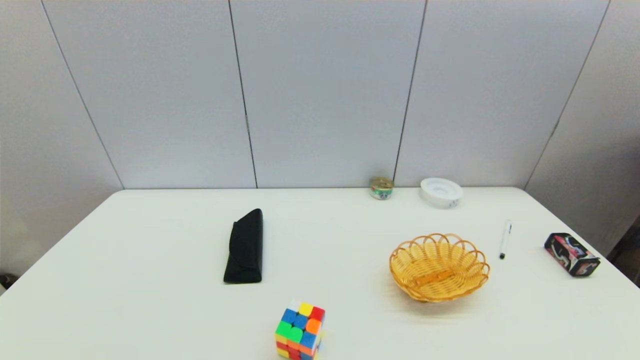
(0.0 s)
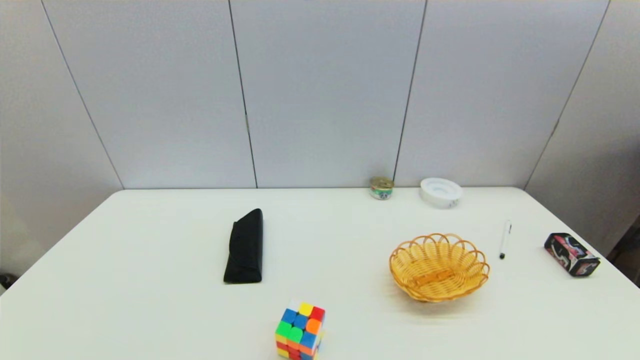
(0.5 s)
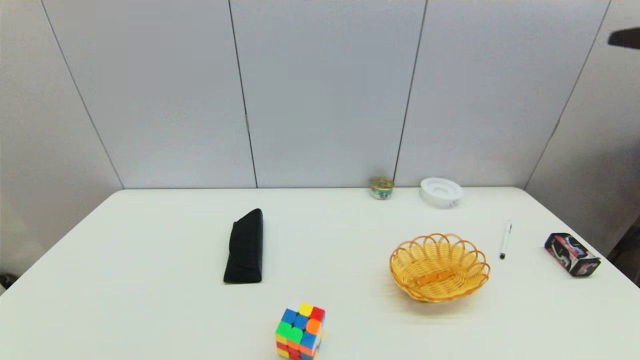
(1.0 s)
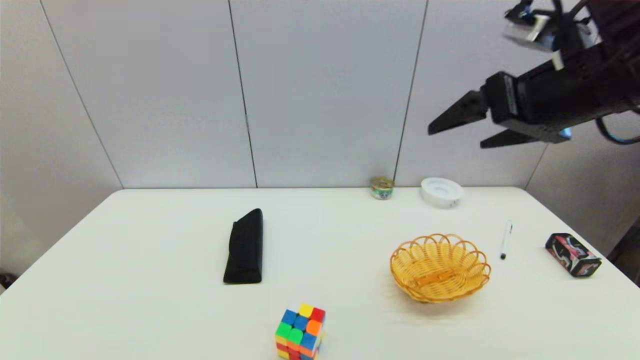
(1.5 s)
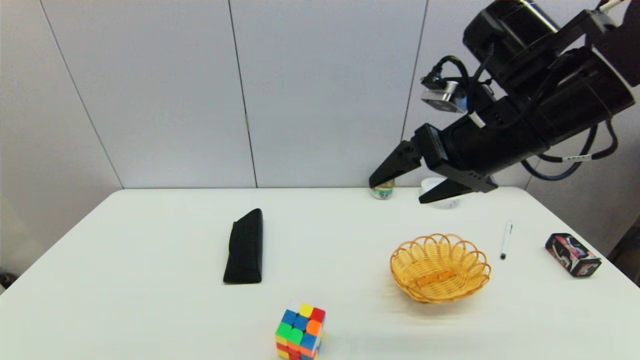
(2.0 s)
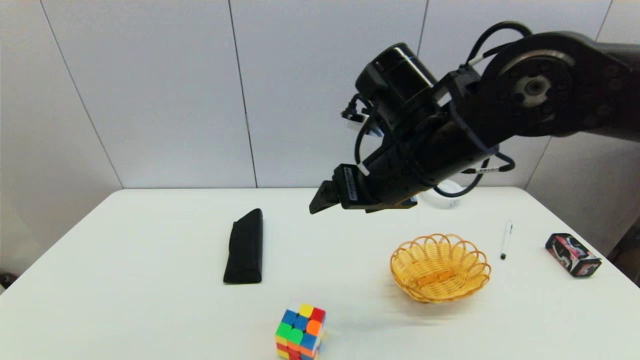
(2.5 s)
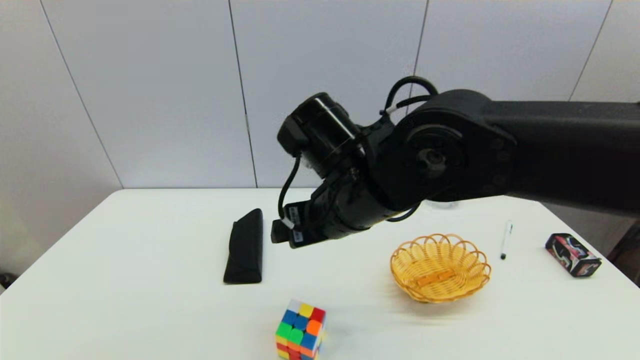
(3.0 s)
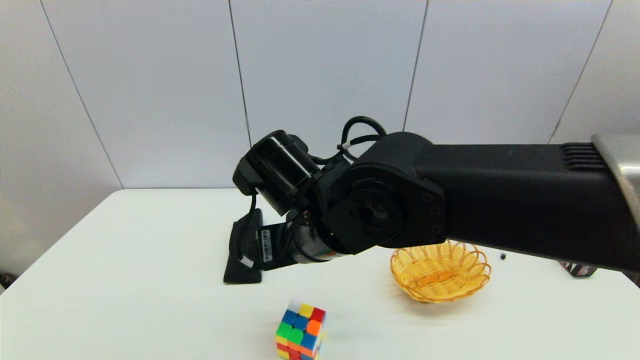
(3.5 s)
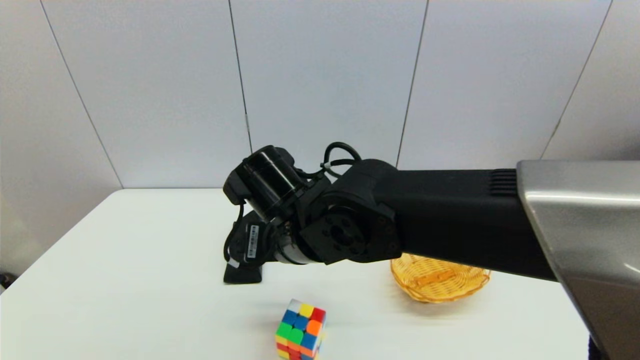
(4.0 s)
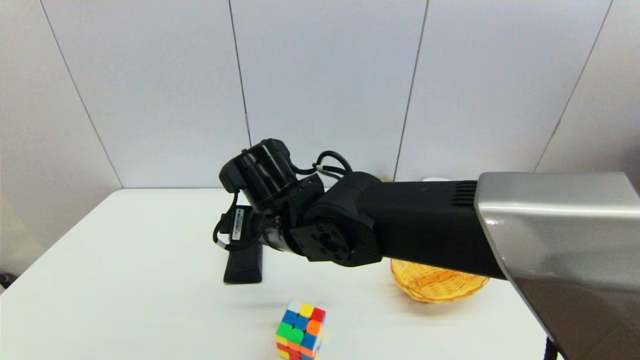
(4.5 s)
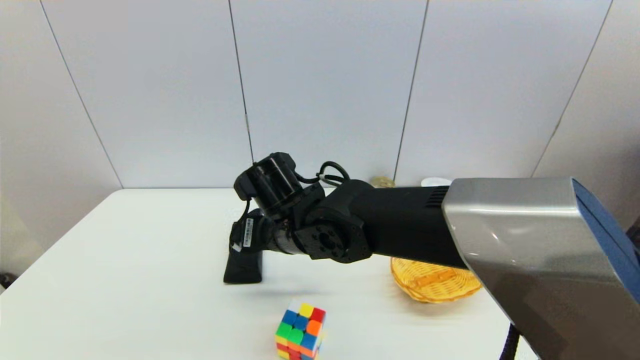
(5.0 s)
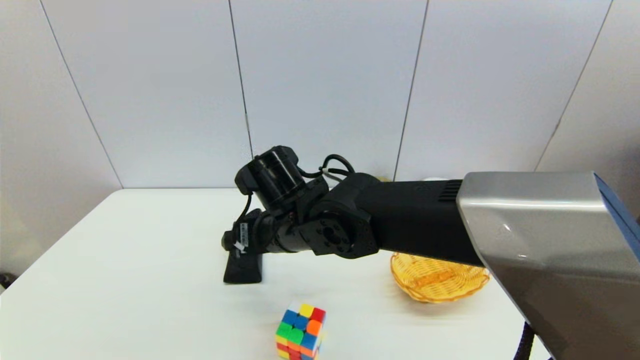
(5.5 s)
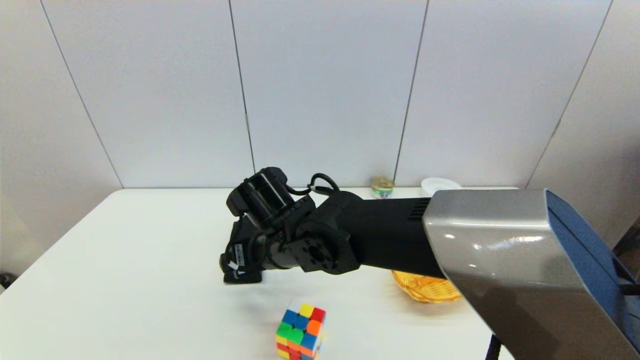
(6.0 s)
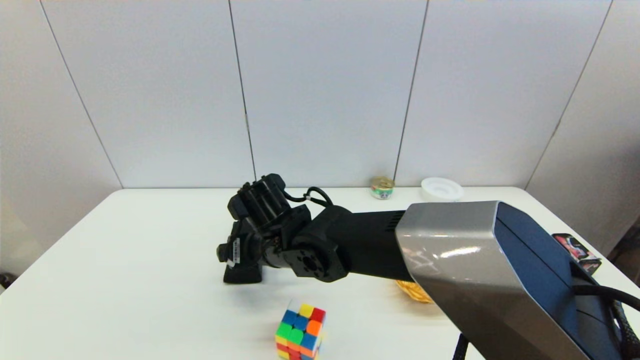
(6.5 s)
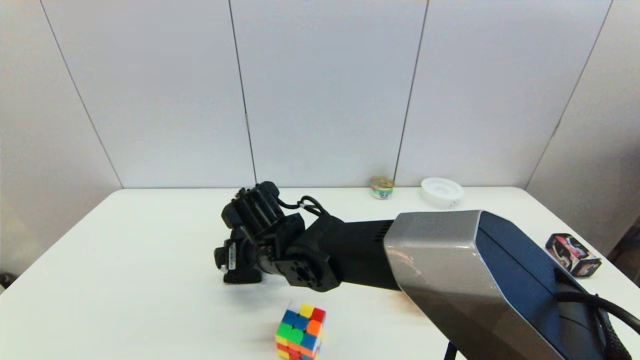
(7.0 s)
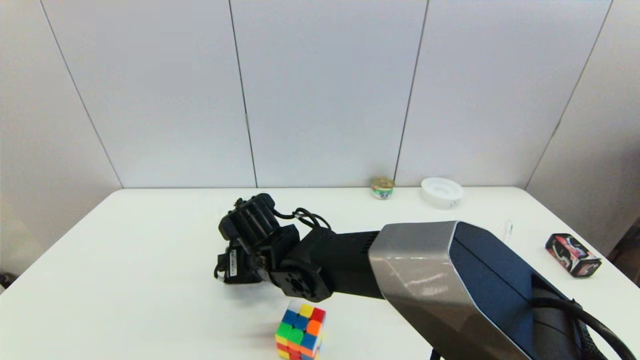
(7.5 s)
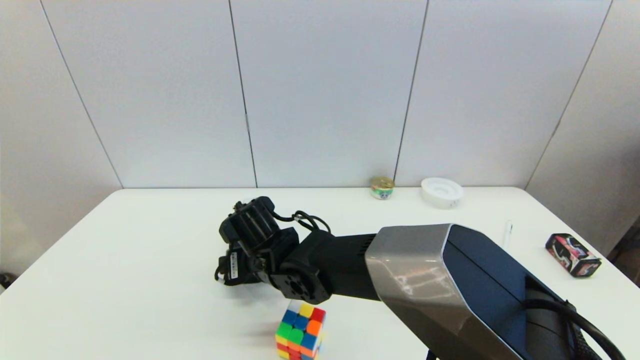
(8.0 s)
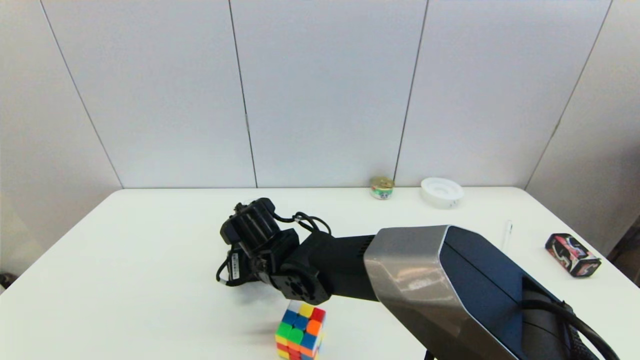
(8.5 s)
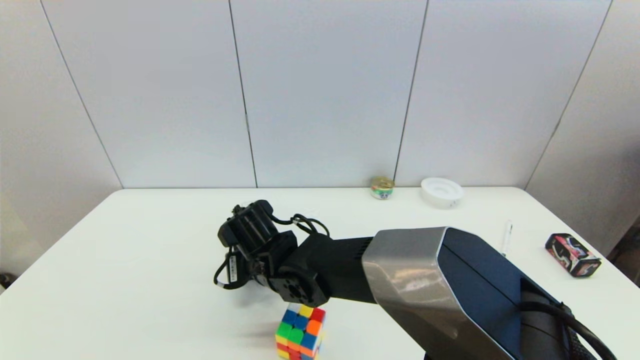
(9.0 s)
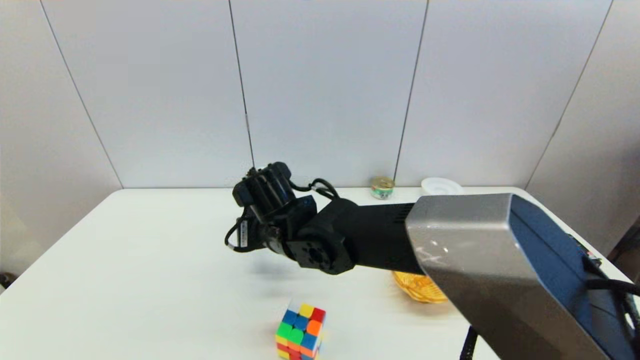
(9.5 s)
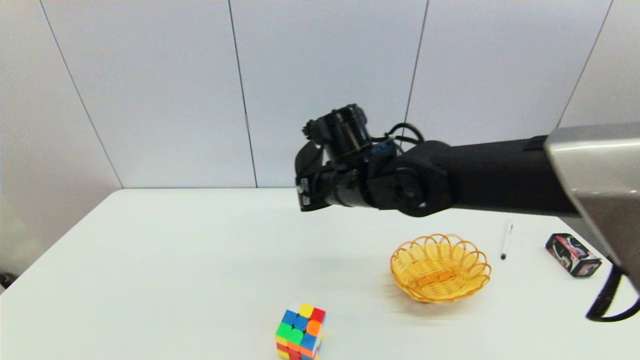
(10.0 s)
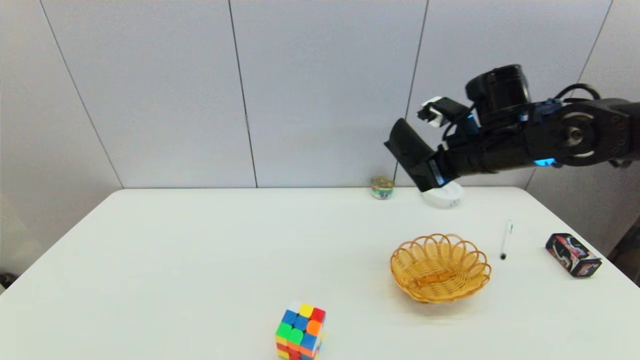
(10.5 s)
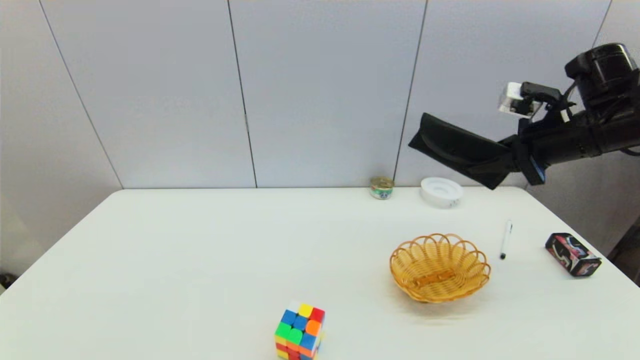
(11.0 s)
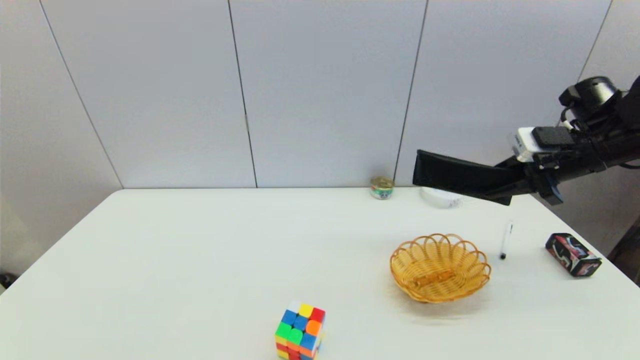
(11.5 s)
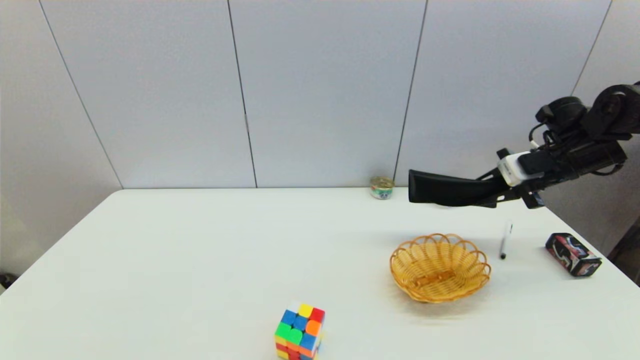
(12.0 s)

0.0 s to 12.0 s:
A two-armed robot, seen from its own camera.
Step, 1.0 to 9.0 s: Grasp the glasses case with right gripper.
0.0 to 2.0 s: The right gripper travels forward, upward and to the left by some 40 cm.
2.0 to 4.0 s: The right gripper is displaced to the left and downward by roughly 25 cm.
4.0 to 6.0 s: The right gripper changes place by approximately 5 cm.
6.0 to 8.0 s: The right gripper shifts approximately 5 cm downward.
8.0 to 10.0 s: The right gripper is displaced to the right and upward by about 15 cm, and closes.
10.0 to 12.0 s: The right gripper travels to the right by some 35 cm.

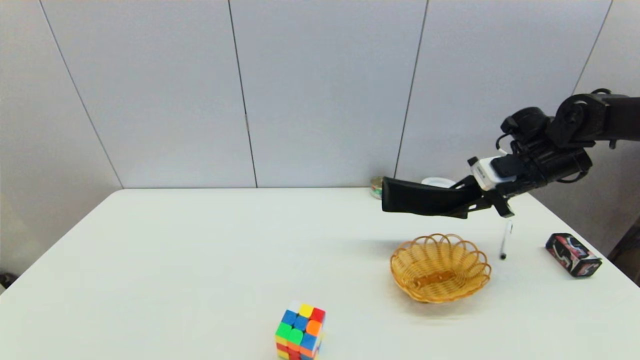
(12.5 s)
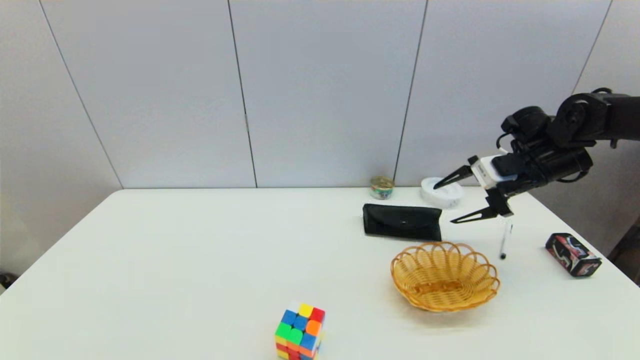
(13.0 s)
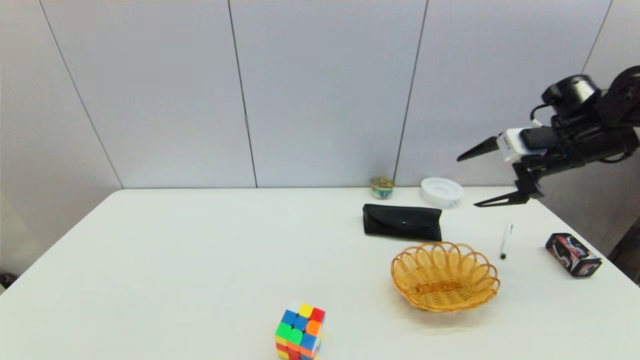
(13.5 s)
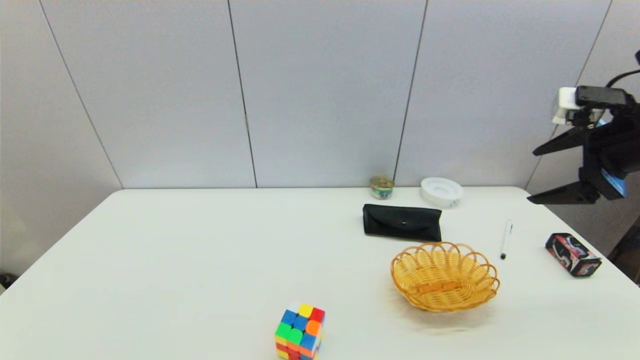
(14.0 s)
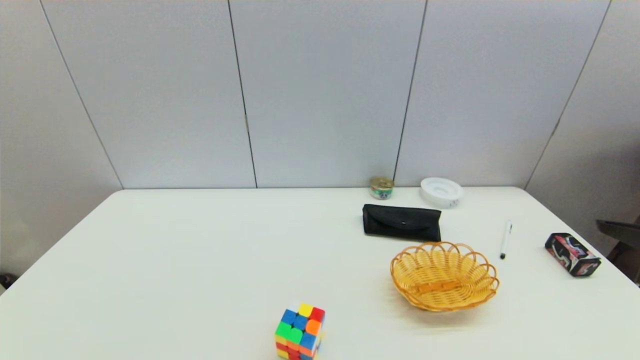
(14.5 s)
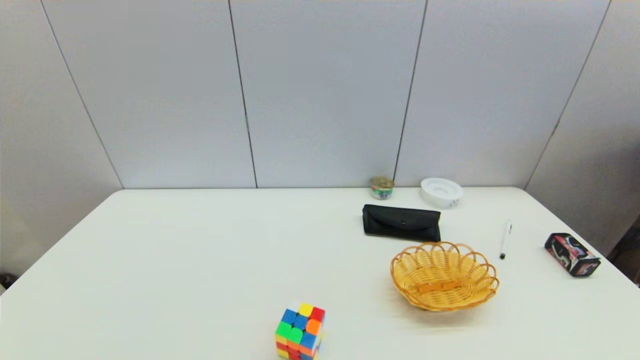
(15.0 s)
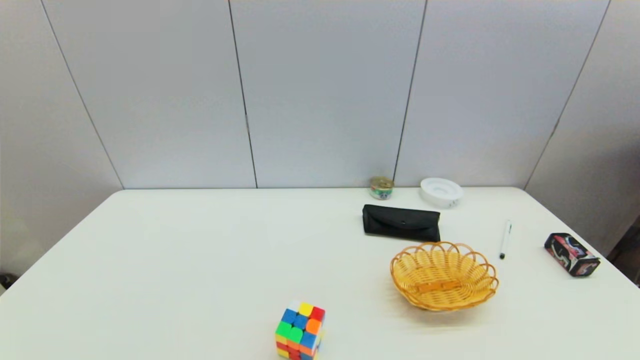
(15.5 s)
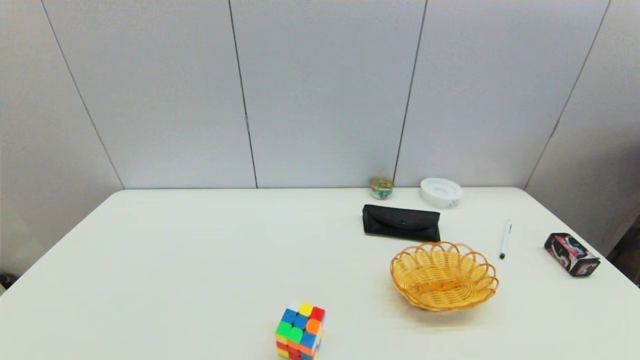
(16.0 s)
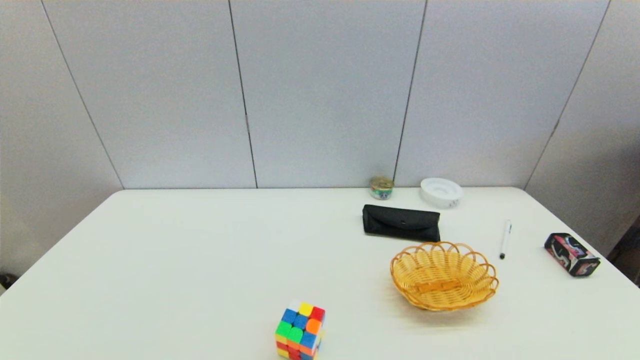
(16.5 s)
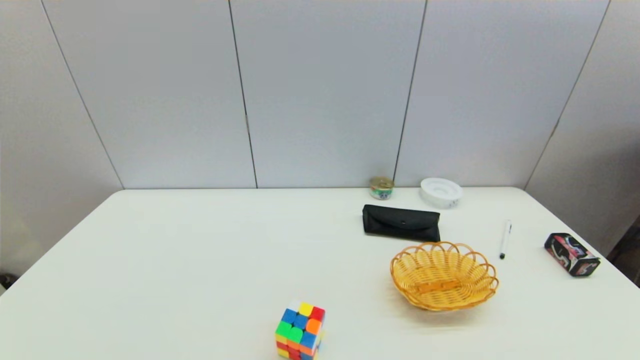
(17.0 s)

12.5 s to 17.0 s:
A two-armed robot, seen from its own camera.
12.5 to 14.5 s: The right gripper is displaced backward by some 25 cm, and opens.

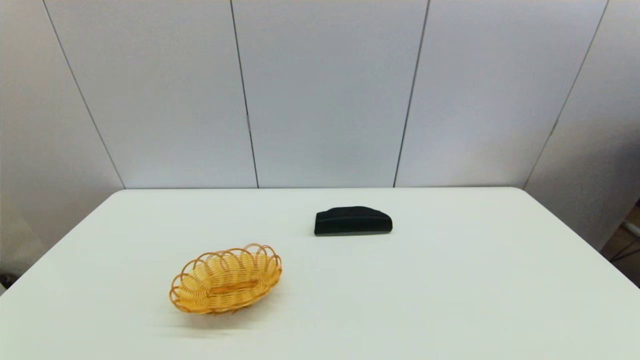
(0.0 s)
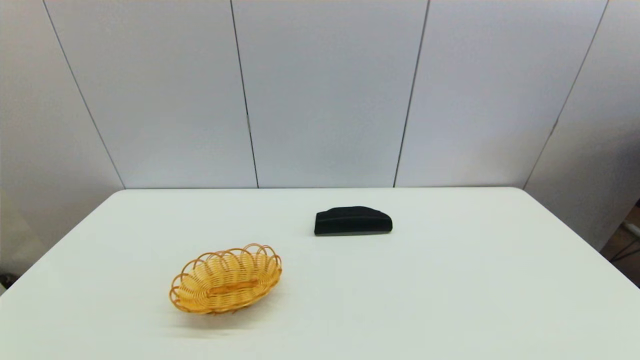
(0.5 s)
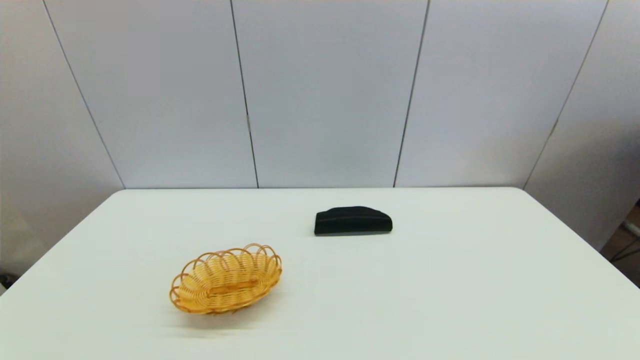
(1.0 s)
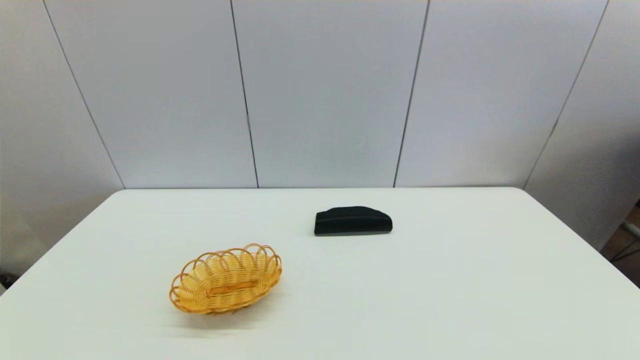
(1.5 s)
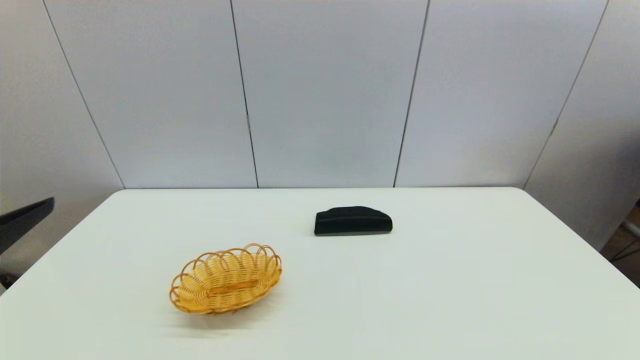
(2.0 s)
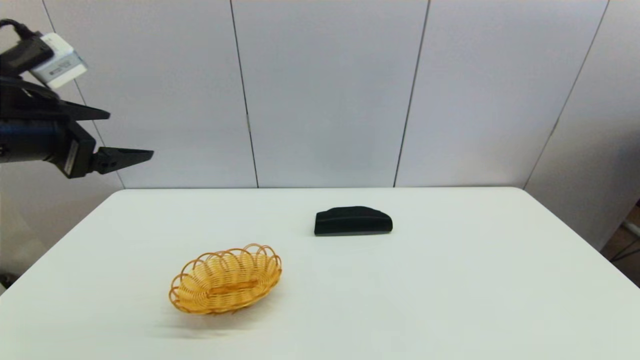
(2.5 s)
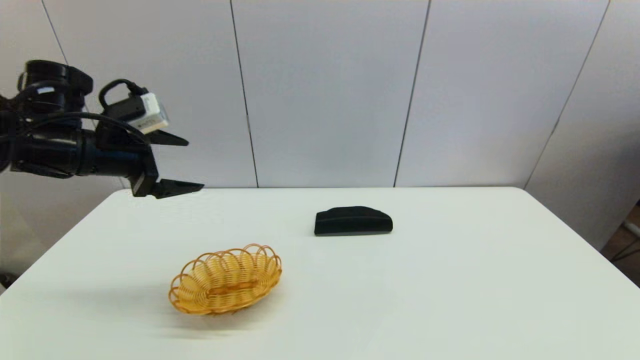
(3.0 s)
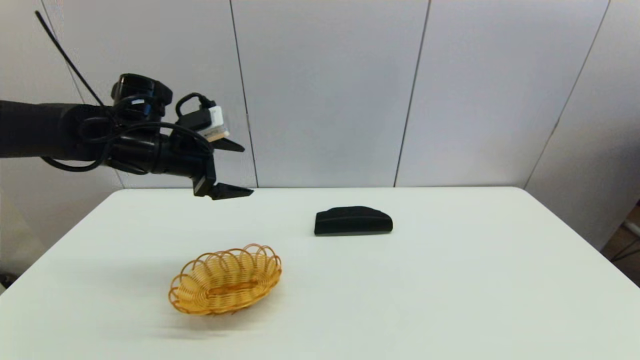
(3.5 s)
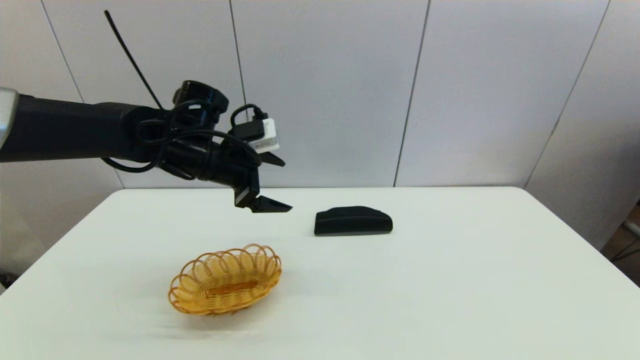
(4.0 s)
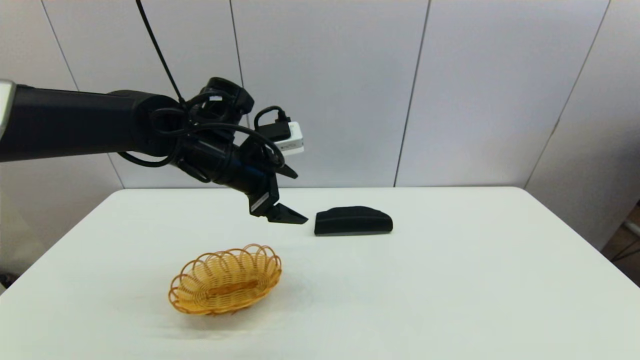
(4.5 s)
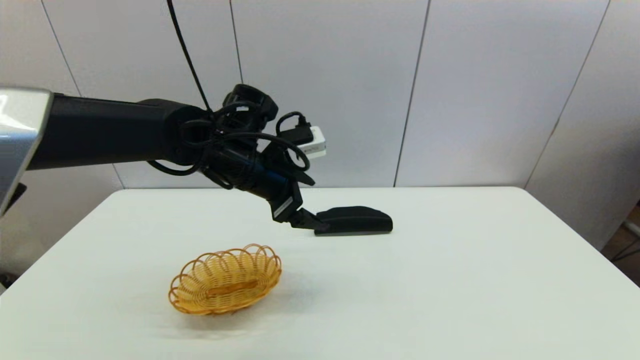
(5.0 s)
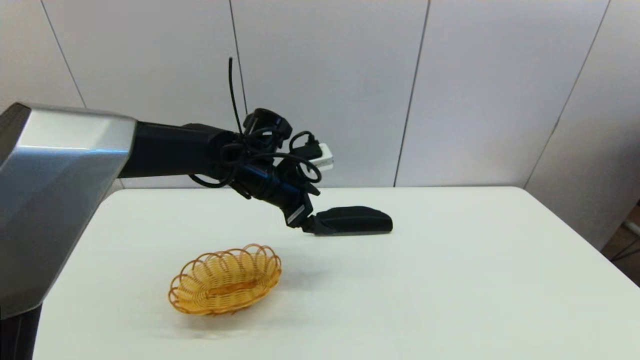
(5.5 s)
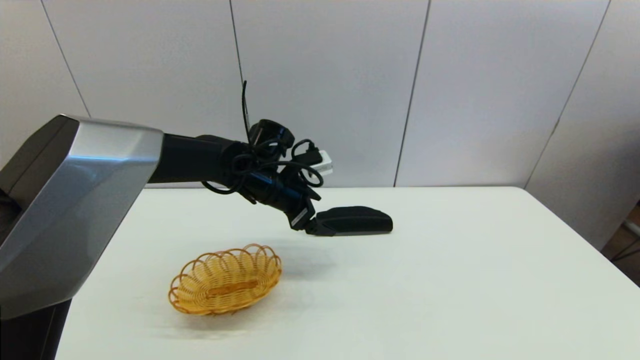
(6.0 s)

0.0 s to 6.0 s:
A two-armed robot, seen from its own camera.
0.0 to 2.0 s: The left gripper heads upward and forward, covering roughly 25 cm.
2.0 to 4.0 s: The left gripper shifts some 30 cm forward and to the right.
4.0 to 6.0 s: The left gripper shifts roughly 10 cm to the right and downward.
